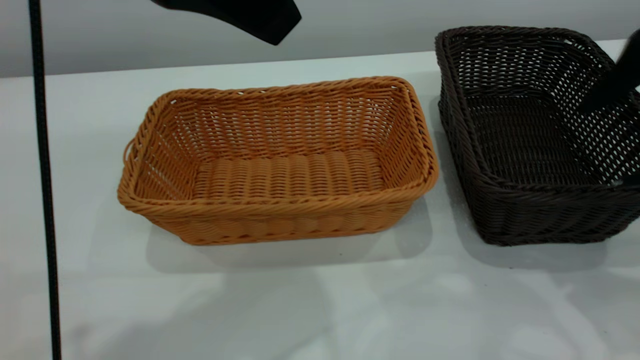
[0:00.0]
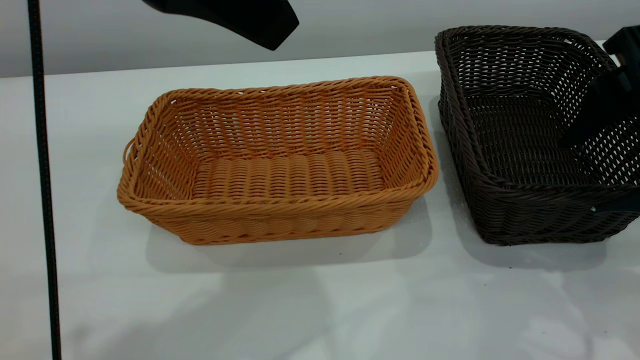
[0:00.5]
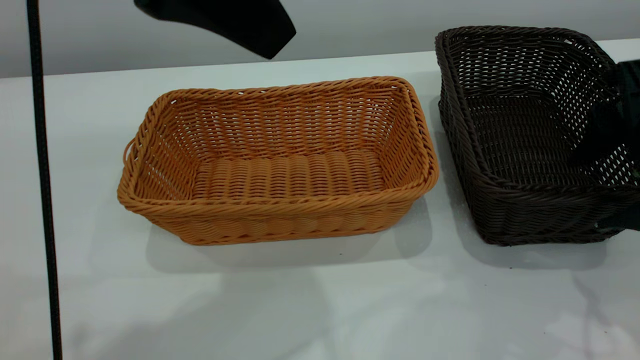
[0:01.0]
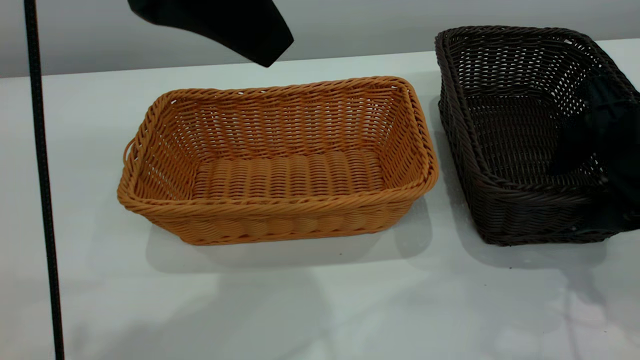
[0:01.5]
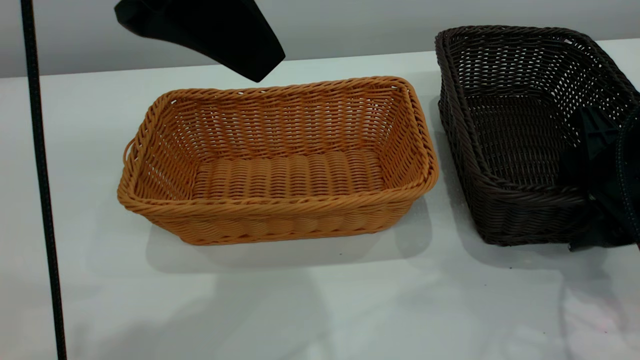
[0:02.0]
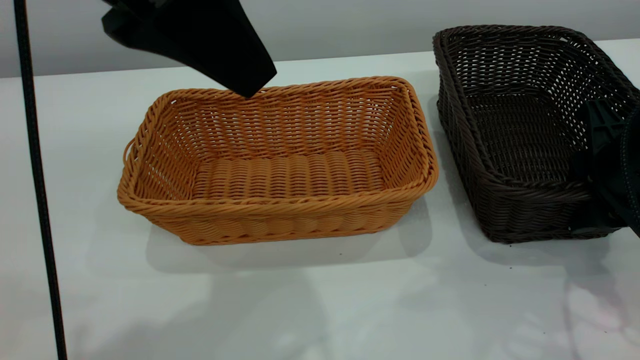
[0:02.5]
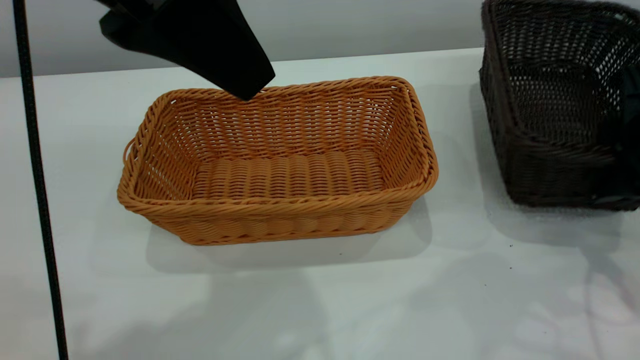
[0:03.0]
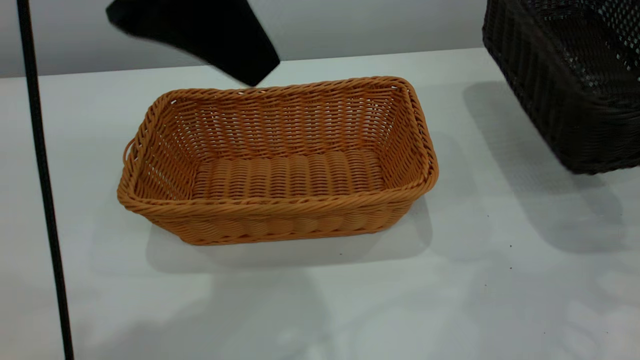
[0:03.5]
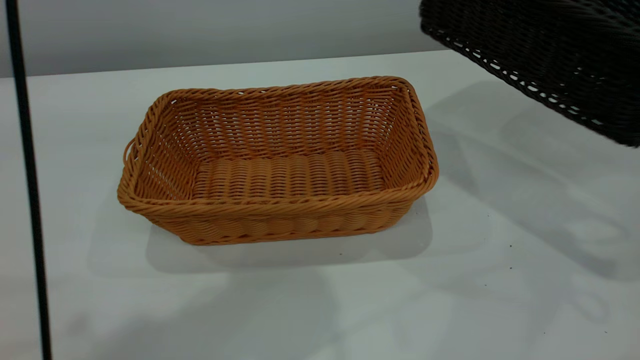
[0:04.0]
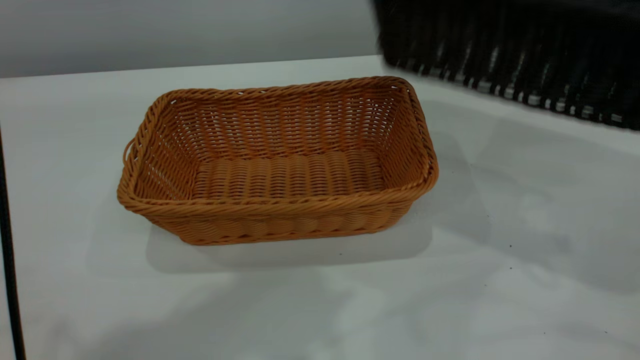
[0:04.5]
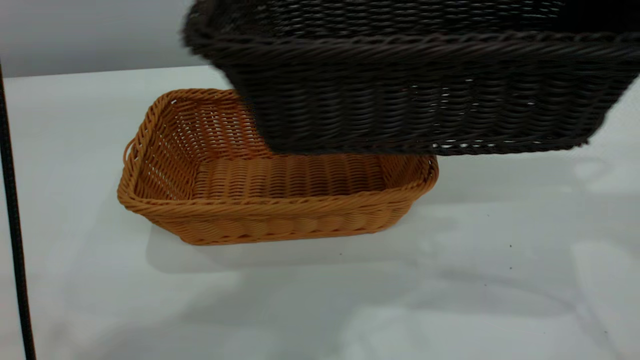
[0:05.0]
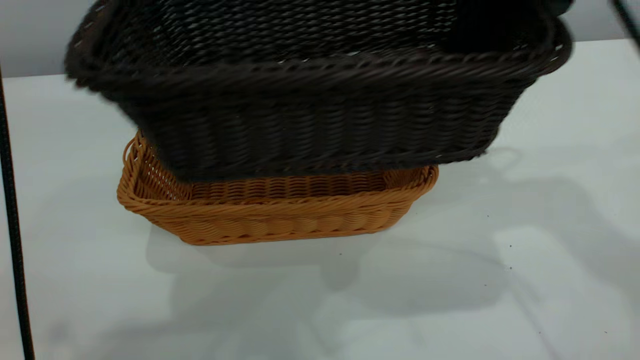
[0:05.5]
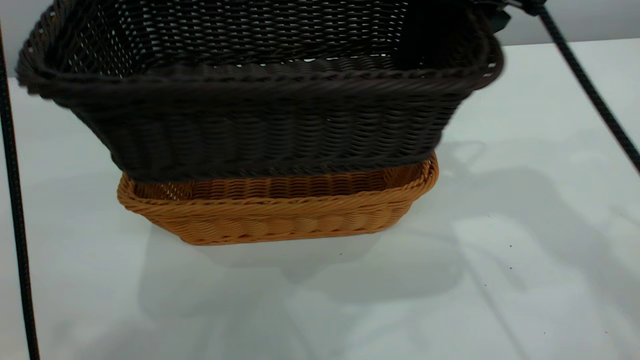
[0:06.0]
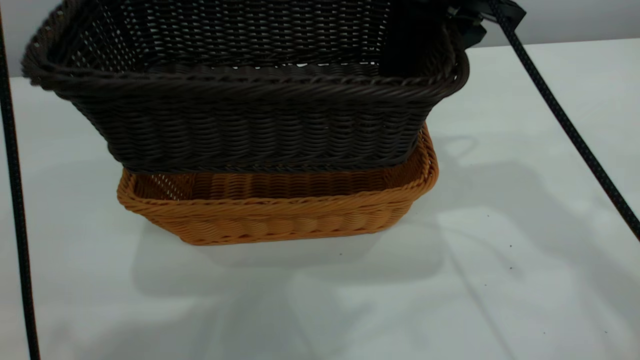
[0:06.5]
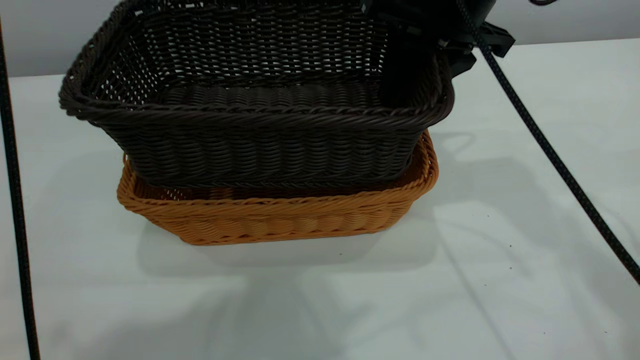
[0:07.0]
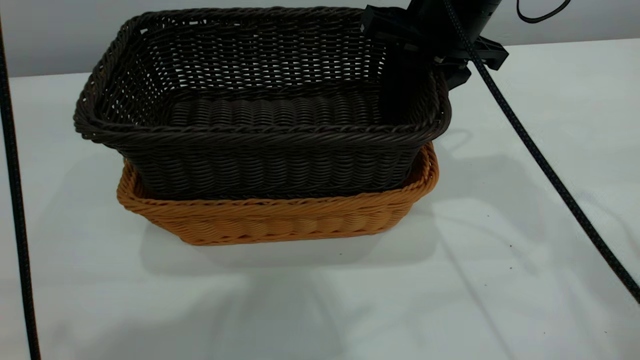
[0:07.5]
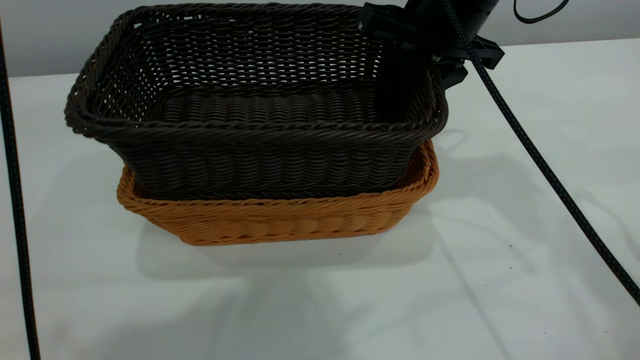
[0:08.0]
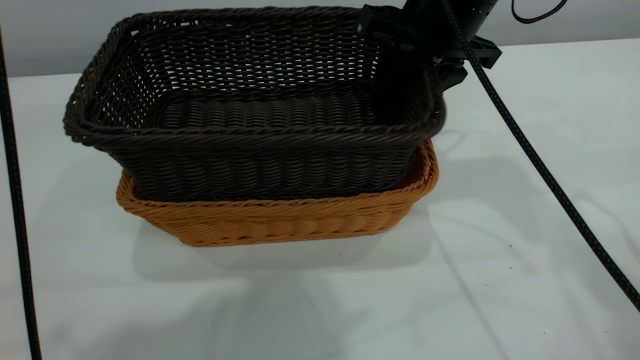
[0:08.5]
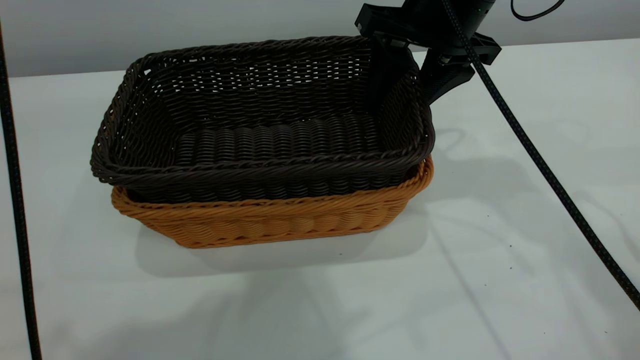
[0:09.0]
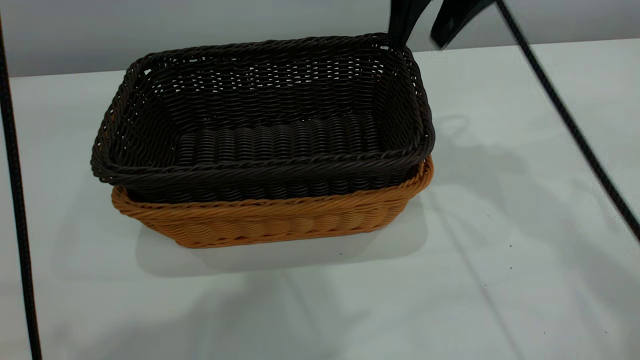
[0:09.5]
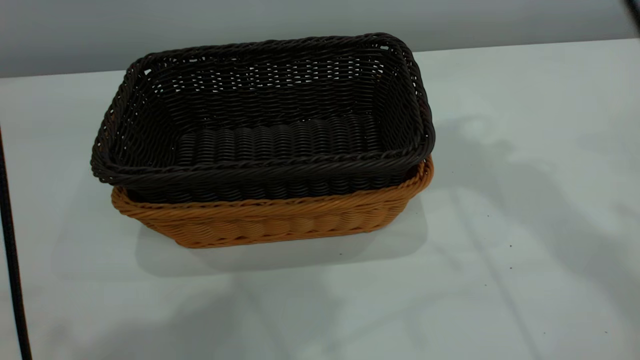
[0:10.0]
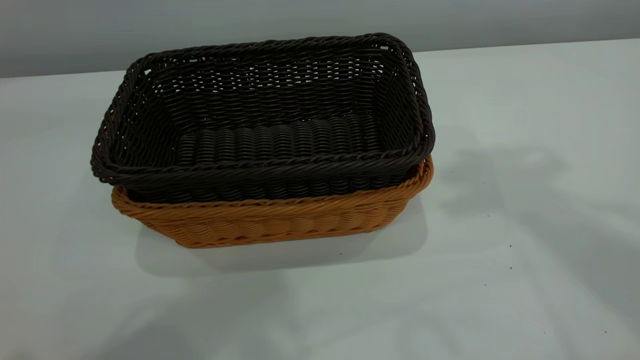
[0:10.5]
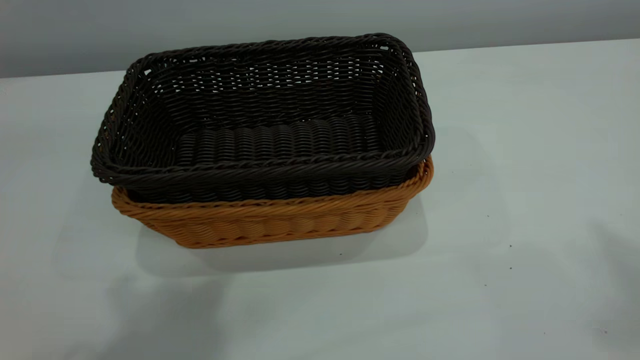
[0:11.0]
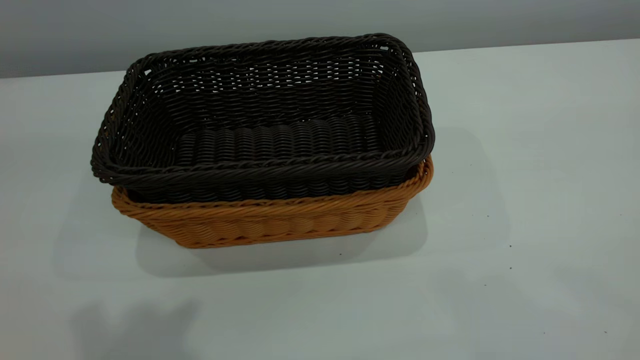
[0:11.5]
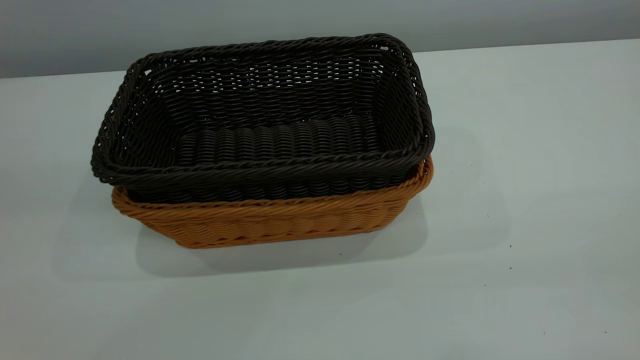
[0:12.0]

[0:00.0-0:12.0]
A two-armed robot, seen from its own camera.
Task of the whole recording: the left gripper grasp the brown basket and place it in the center of the table, the right gripper grasp the black basket and place it inside the brown one.
Step, 0:00.0 to 0:04.5: Pick up the light basket with the right gripper.
Step, 0:05.0 to 0:09.5: Place the dark basket on top of the light basket.
0:00.0 to 0:02.0: The right gripper shifts some 10 cm downward and forward.
0:02.0 to 0:04.0: The left gripper moves upward, roughly 5 cm. Meanwhile the right gripper goes about 15 cm upward and to the right.
0:04.0 to 0:06.0: The right gripper heads to the left, covering approximately 20 cm.
0:06.0 to 0:08.0: The right gripper heads downward, covering some 5 cm.
0:08.0 to 0:10.0: The right gripper is displaced upward by roughly 15 cm, and closes up.
0:10.0 to 0:12.0: The left gripper moves backward and to the left, roughly 15 cm, and closes up.
